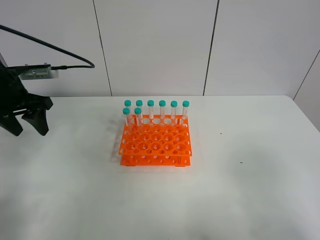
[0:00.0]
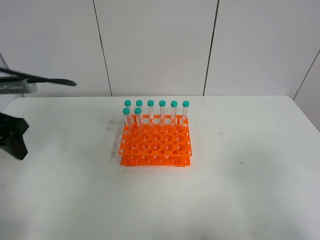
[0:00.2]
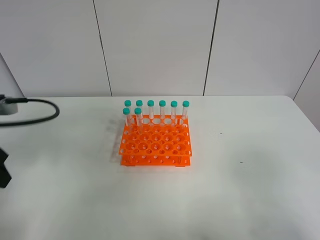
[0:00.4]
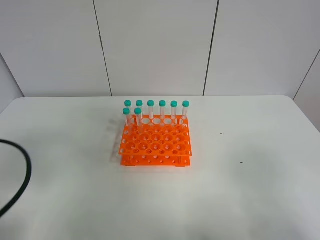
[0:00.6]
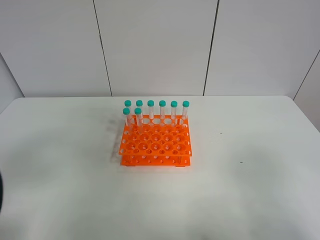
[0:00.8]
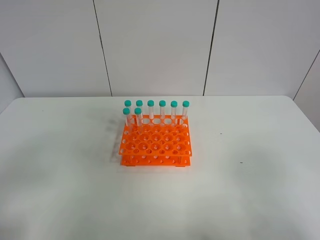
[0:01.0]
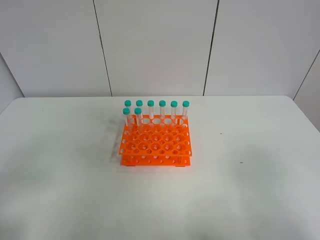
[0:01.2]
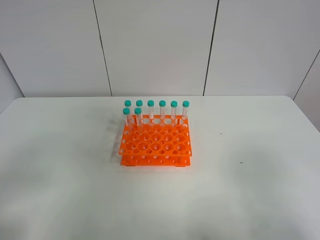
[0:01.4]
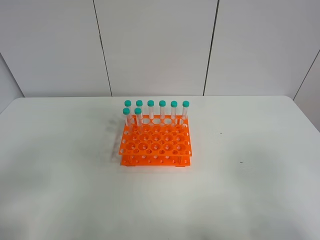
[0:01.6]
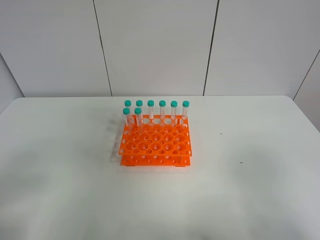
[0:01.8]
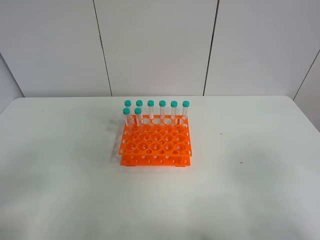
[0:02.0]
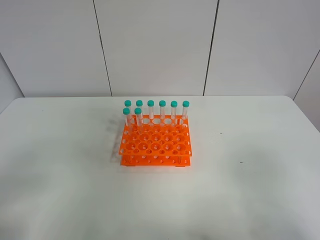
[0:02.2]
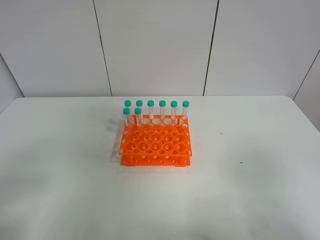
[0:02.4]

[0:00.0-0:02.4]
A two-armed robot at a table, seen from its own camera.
Task of the whole recording: Put the test tube on the table back onto the test tube rack.
0.0 to 1.2 s: The left gripper is displaced backward by roughly 30 cm.

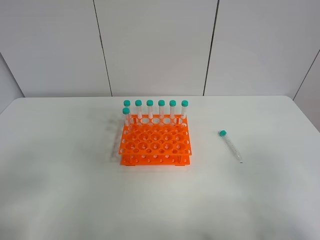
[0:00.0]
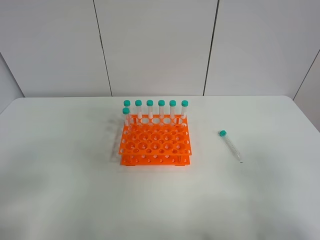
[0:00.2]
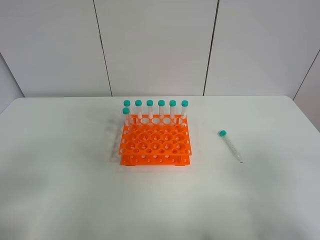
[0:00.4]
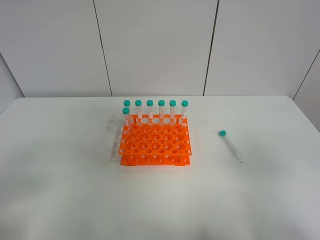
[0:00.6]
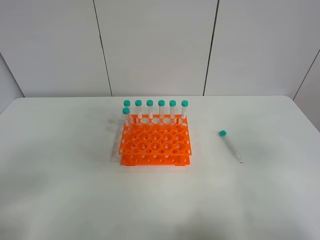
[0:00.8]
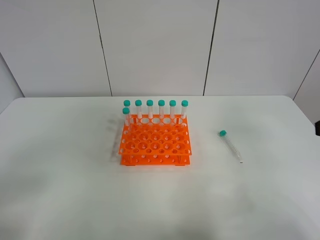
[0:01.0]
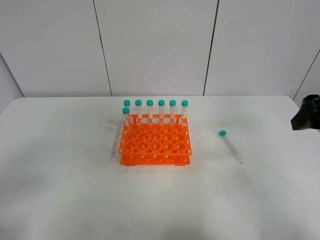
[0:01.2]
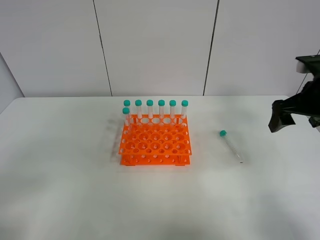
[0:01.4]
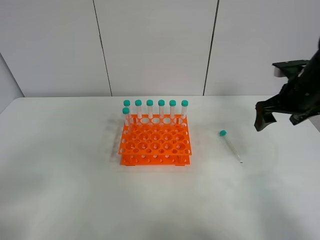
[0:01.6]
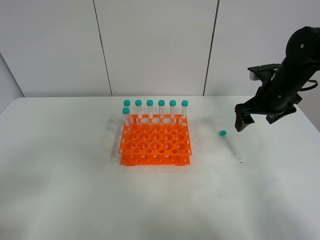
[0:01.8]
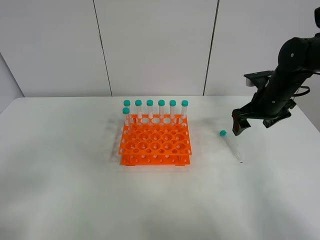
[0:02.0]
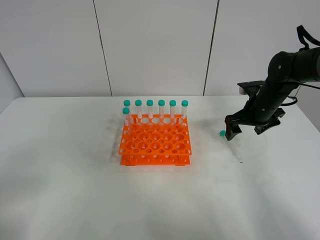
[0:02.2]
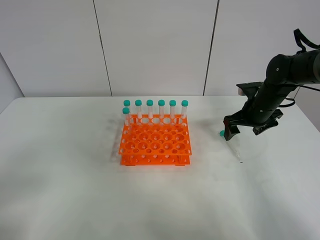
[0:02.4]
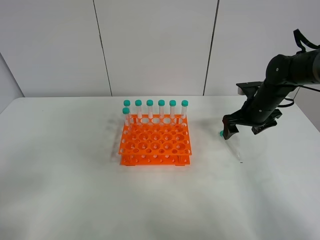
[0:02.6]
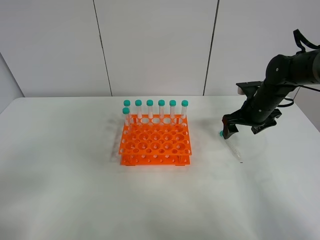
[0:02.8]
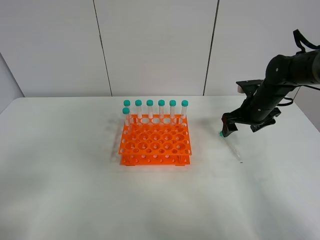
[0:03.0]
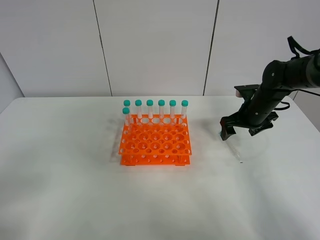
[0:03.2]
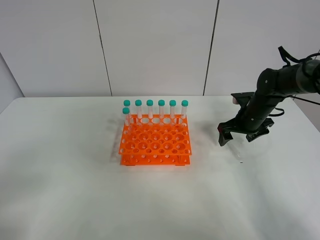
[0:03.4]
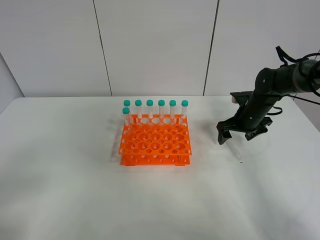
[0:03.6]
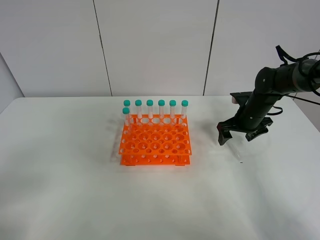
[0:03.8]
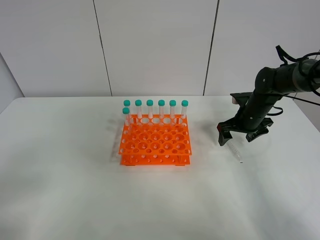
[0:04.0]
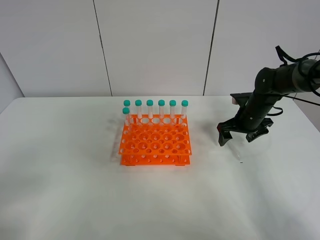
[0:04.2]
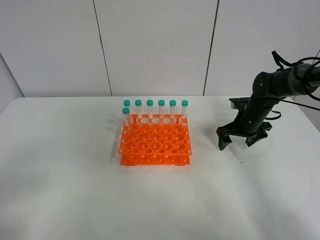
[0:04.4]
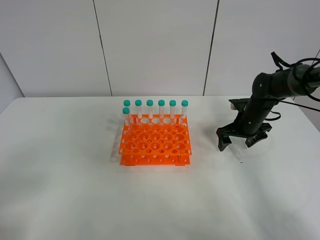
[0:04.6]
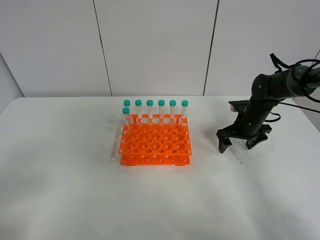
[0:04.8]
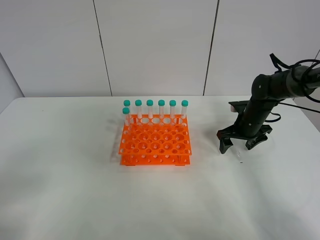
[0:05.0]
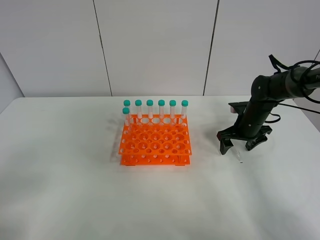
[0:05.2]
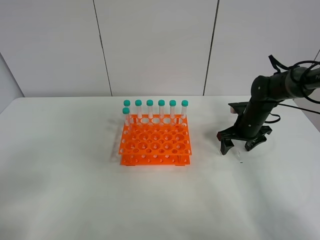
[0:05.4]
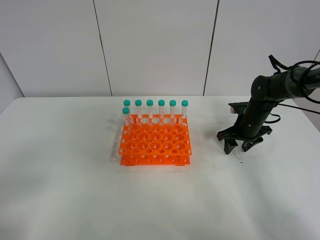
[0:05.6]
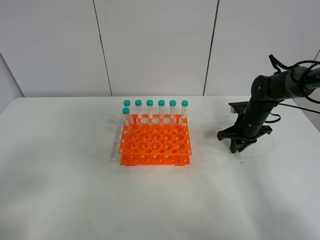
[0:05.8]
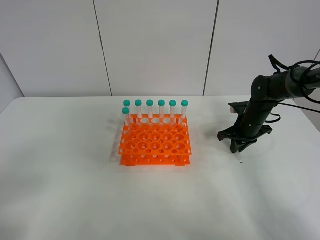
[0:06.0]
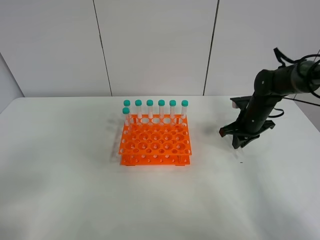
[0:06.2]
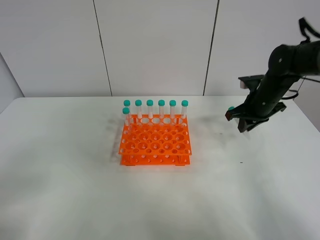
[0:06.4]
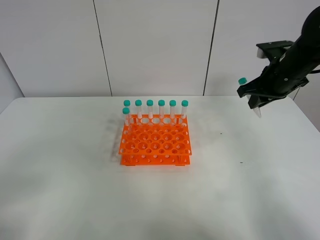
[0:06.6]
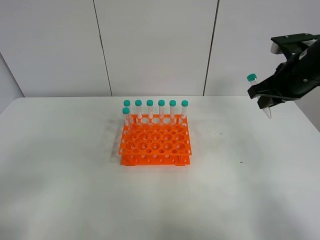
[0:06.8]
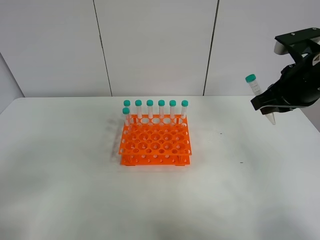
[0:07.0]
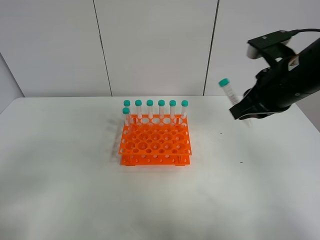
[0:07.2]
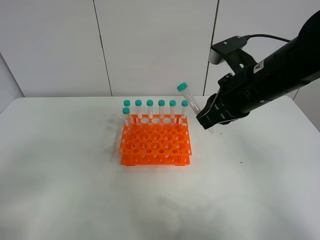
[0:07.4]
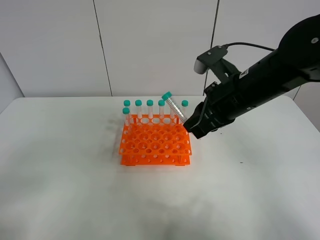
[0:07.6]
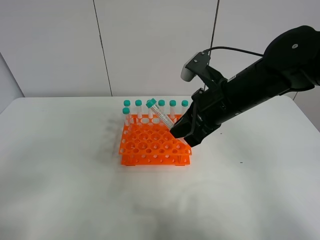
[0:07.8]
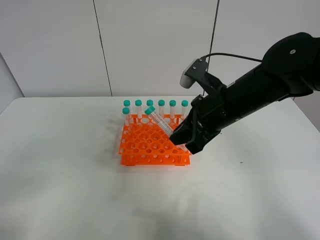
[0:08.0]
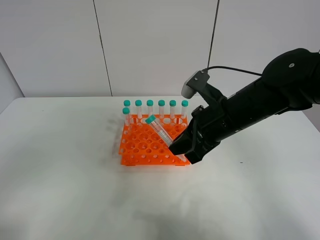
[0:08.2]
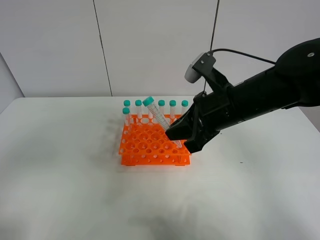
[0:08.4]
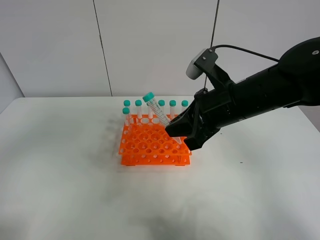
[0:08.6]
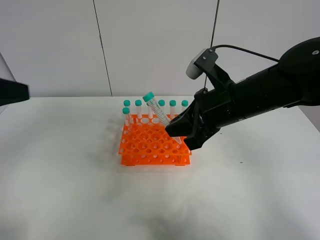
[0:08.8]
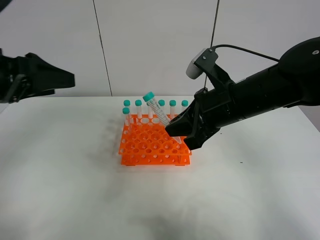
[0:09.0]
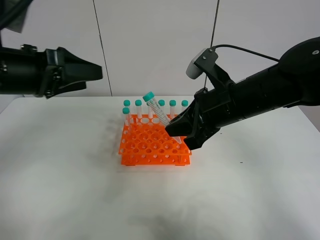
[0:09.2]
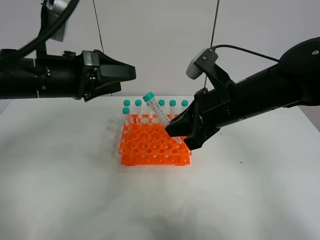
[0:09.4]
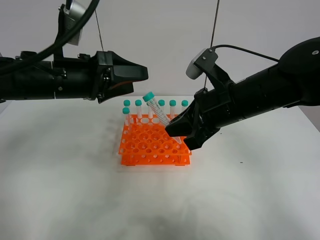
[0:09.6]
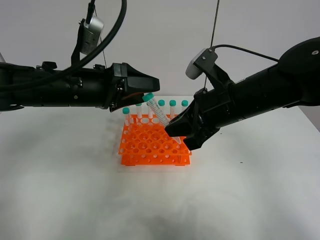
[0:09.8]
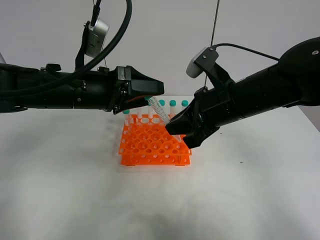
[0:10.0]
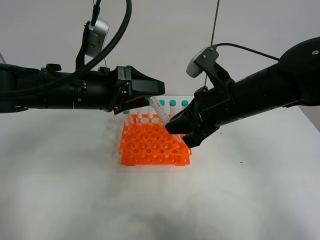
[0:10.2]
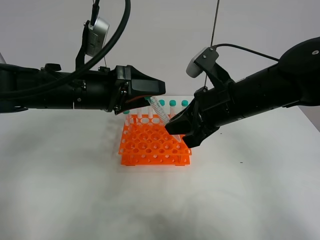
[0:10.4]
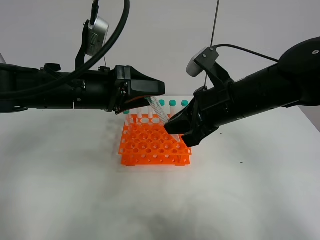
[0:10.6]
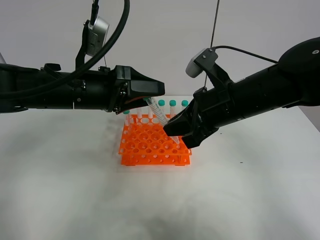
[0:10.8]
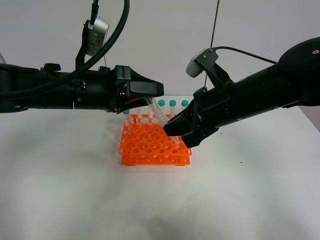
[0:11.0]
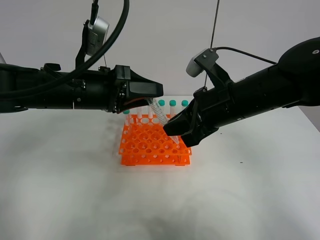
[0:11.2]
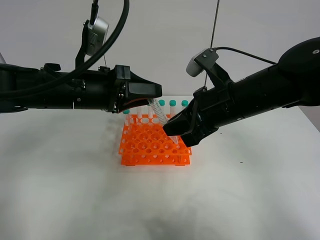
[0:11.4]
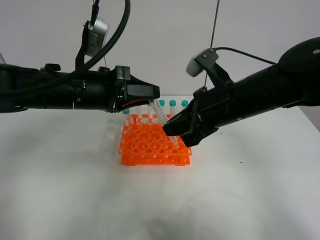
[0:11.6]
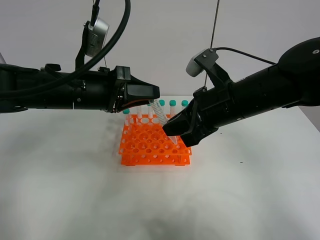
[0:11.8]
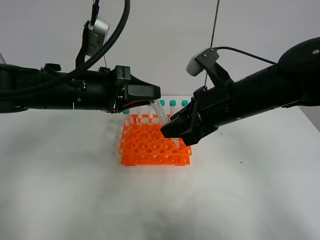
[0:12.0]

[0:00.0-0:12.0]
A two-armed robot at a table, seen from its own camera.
Task of the whole recording: Put the test tube on the table back onto the test tube rack.
Step, 0.0 to 6.4 s: Pick up the test tube with the right gripper.
0.0 to 1.6 s: The right gripper goes about 35 cm forward.
1.6 to 3.0 s: The right gripper is displaced downward by about 10 cm.
3.0 to 4.4 s: The right gripper travels downward by some 5 cm.
4.4 to 6.0 s: The right gripper closes.
6.0 to 7.6 s: The right gripper moves upward, backward and to the left, roughly 25 cm.
7.6 to 9.0 s: The left gripper heads forward, covering some 20 cm.
9.0 to 10.4 s: The left gripper goes about 15 cm to the right and downward.
10.4 to 12.0 s: The left gripper closes its fingers. The right gripper opens its fingers.

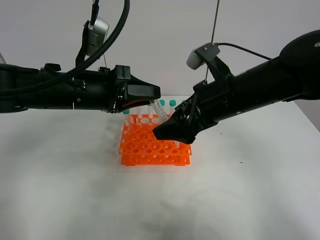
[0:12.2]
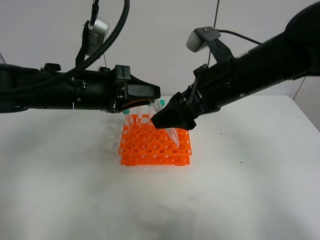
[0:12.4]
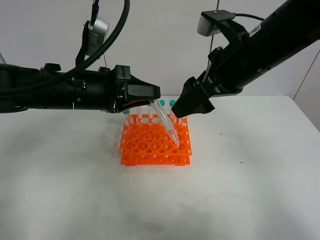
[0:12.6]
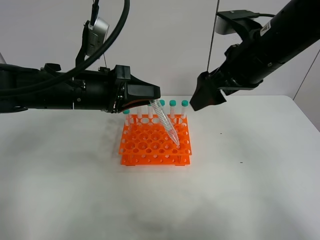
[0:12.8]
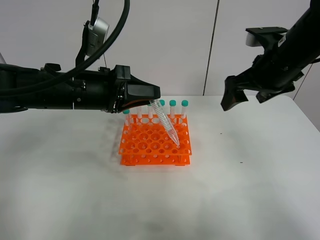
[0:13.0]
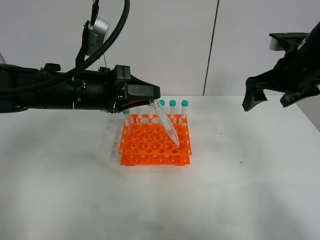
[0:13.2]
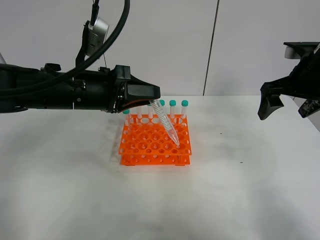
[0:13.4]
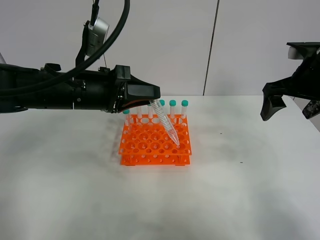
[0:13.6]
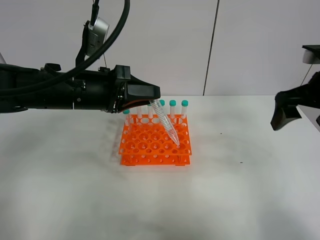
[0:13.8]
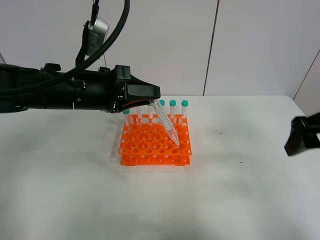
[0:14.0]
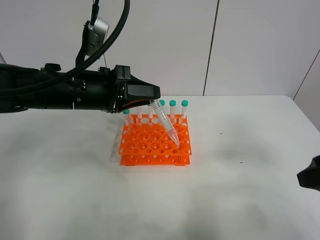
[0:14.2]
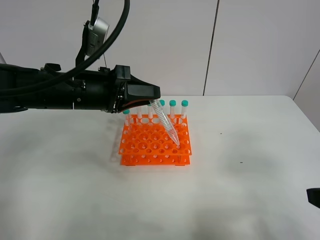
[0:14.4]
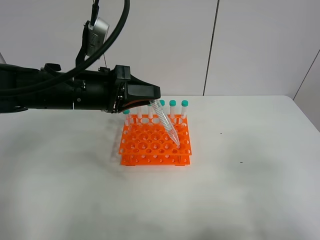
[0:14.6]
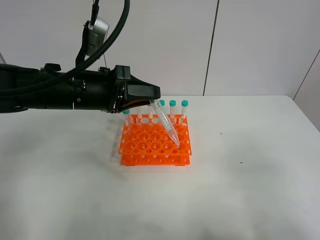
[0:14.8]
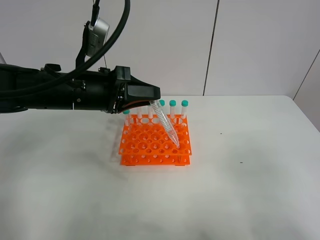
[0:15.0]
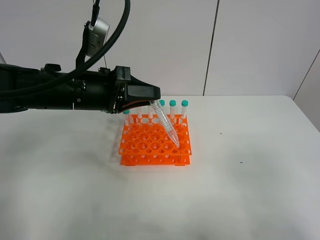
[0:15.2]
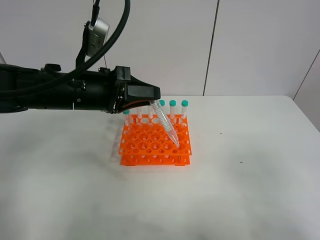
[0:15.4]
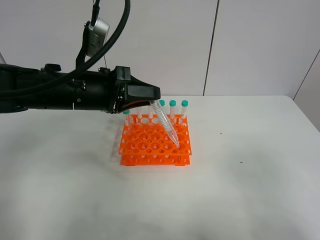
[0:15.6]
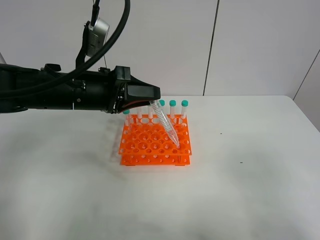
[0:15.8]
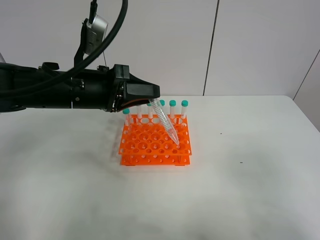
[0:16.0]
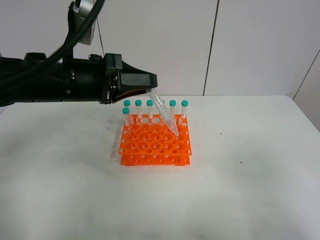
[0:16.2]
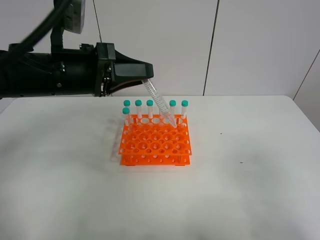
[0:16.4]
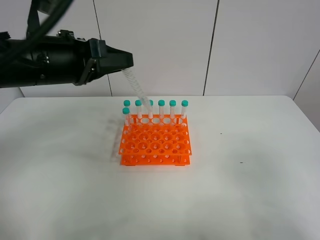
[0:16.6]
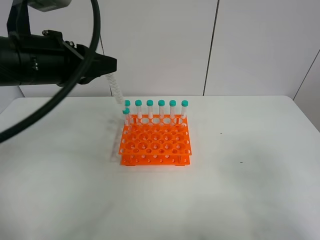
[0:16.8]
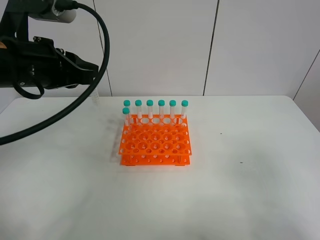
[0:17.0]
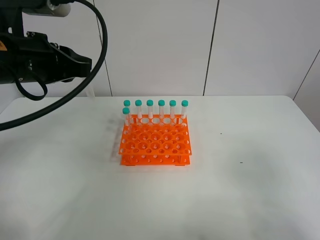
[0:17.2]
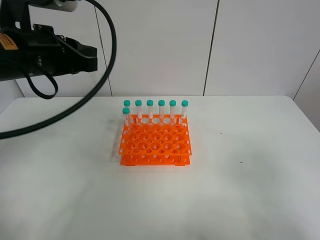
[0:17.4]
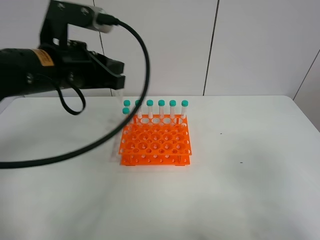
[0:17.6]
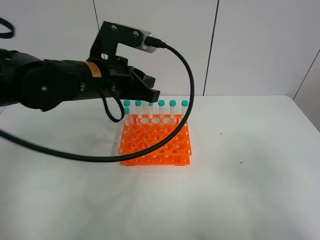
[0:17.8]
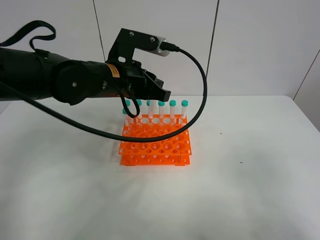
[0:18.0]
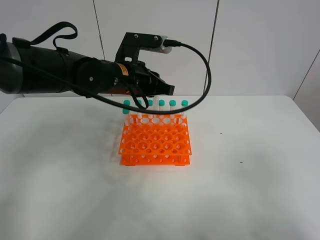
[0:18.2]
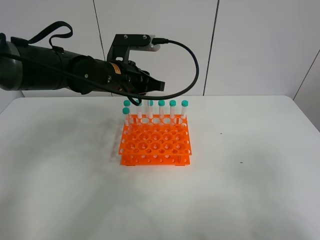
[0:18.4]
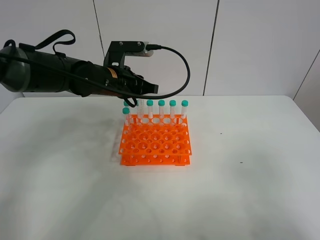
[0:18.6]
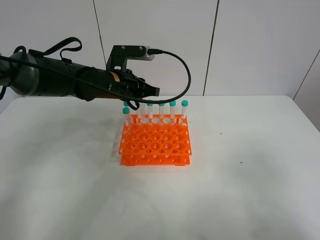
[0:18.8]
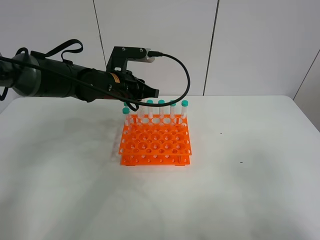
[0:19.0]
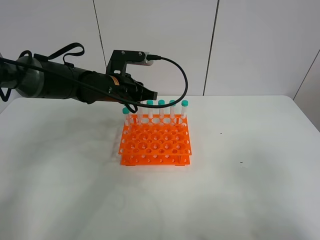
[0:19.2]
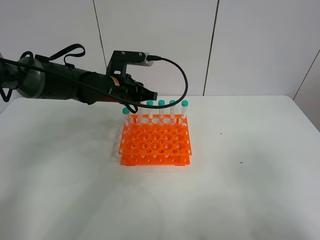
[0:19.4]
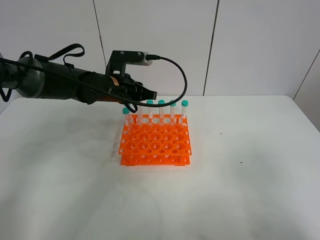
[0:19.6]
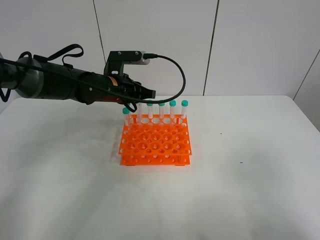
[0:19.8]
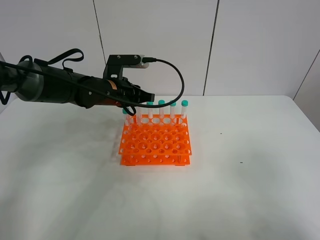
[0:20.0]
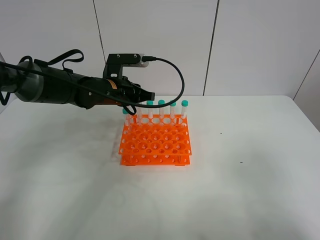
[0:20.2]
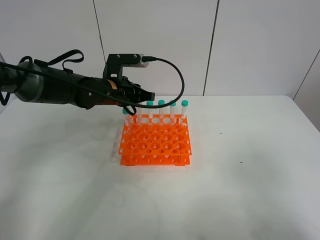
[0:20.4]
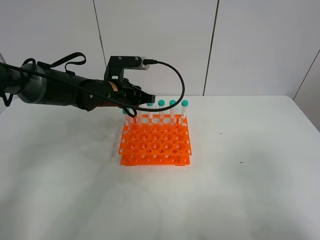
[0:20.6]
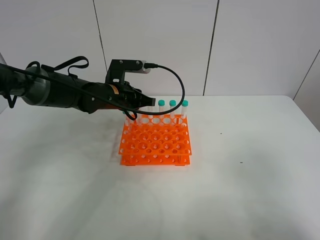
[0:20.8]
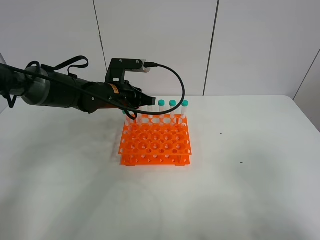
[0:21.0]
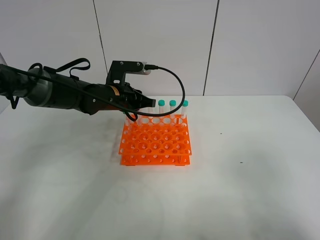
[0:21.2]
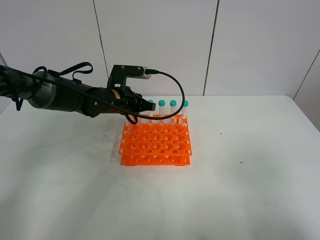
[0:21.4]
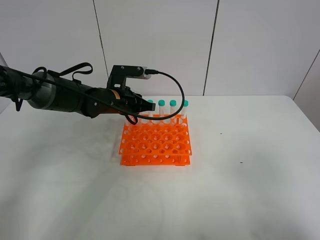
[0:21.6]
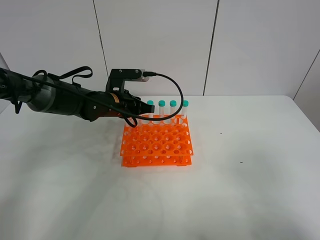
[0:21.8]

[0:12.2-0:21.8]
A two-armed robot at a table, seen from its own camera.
Task of the whole recording: Put the test tube on the table back onto the test tube rack.
12.2 to 13.8 s: The right gripper goes some 15 cm to the right.
13.8 to 15.4 s: The right gripper travels backward by approximately 25 cm.
15.4 to 17.0 s: The left gripper goes roughly 10 cm upward and to the left.
17.0 to 18.6 s: The left gripper is displaced forward, downward and to the right by roughly 20 cm.
18.6 to 20.2 s: The grippers make only small movements.
20.2 to 21.8 s: The grippers make only small movements.
